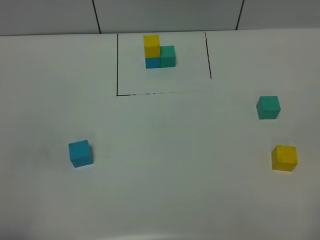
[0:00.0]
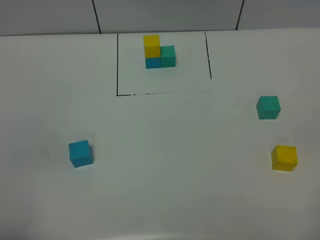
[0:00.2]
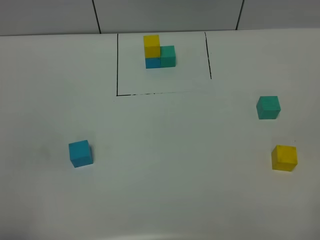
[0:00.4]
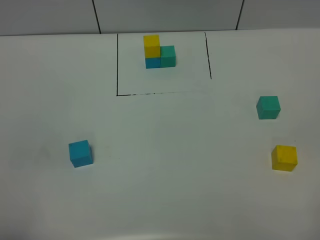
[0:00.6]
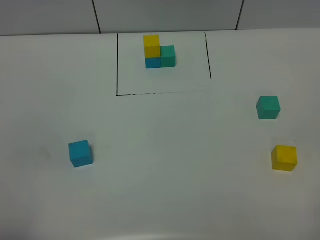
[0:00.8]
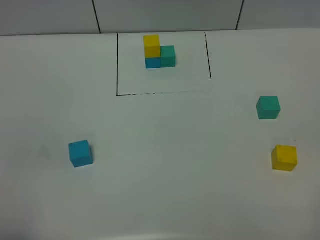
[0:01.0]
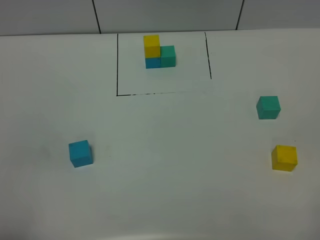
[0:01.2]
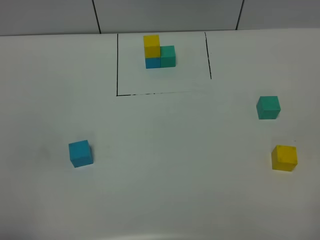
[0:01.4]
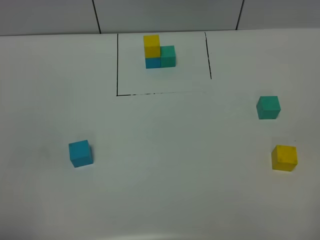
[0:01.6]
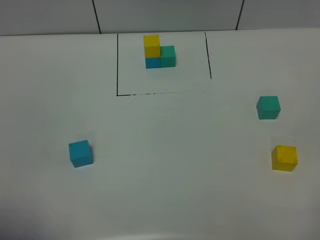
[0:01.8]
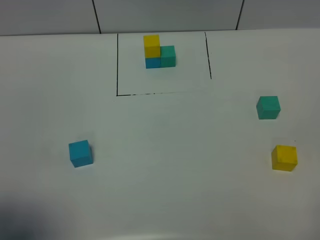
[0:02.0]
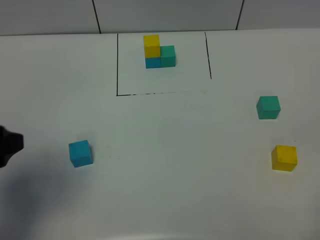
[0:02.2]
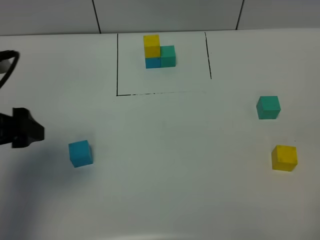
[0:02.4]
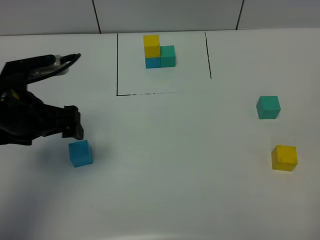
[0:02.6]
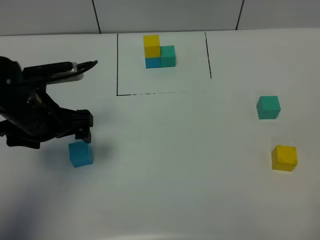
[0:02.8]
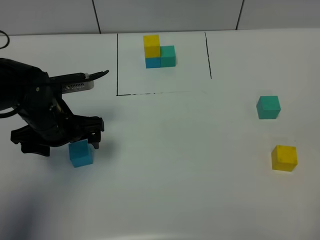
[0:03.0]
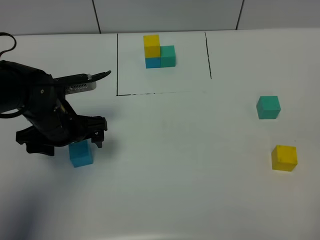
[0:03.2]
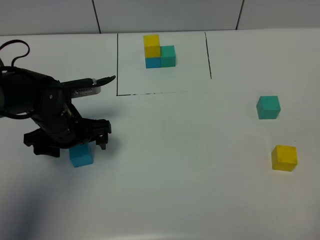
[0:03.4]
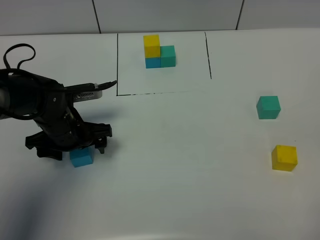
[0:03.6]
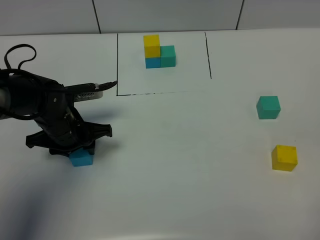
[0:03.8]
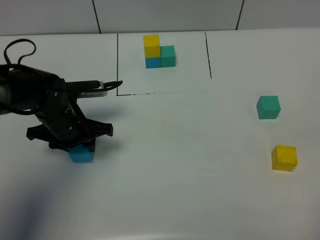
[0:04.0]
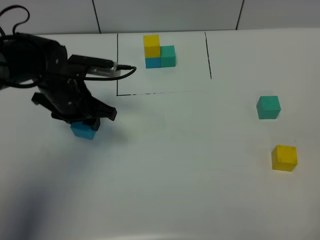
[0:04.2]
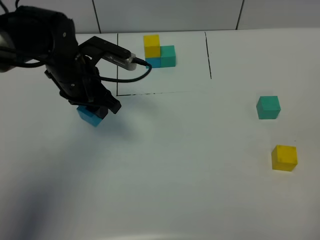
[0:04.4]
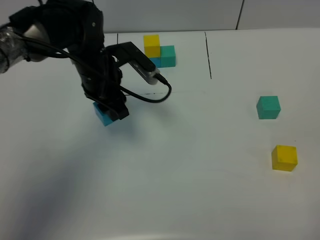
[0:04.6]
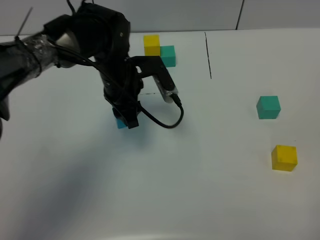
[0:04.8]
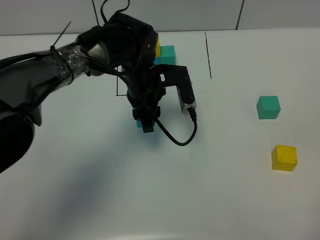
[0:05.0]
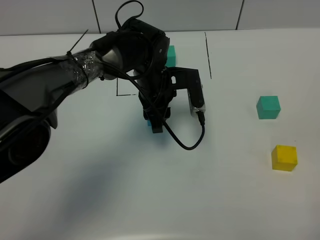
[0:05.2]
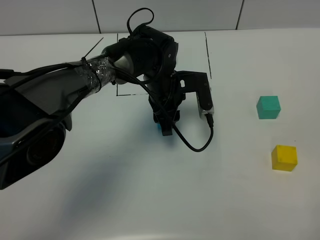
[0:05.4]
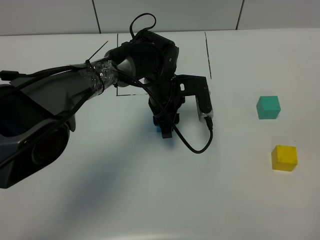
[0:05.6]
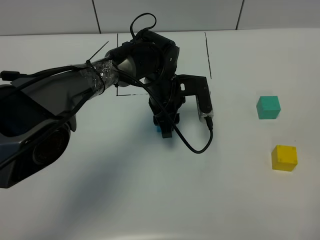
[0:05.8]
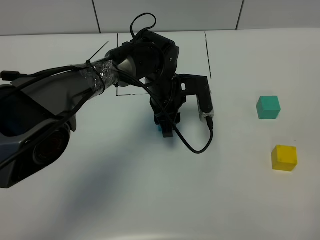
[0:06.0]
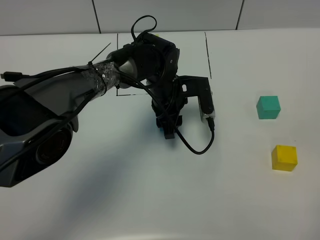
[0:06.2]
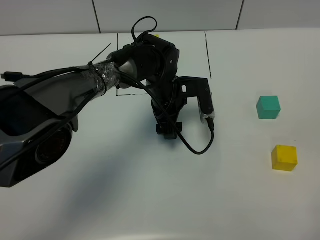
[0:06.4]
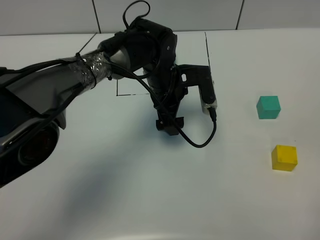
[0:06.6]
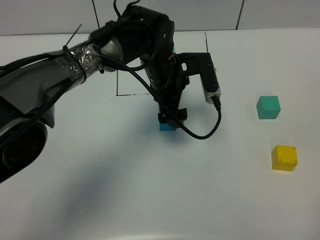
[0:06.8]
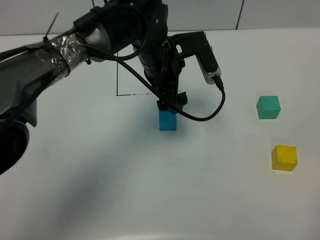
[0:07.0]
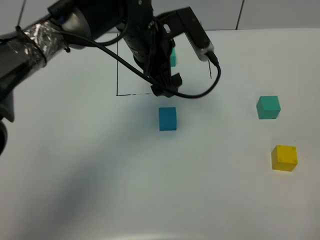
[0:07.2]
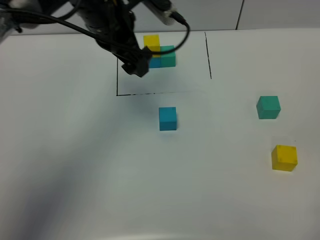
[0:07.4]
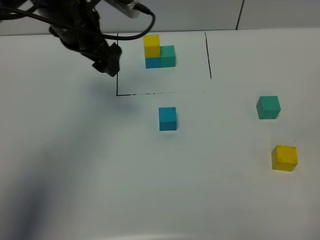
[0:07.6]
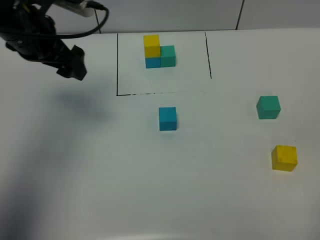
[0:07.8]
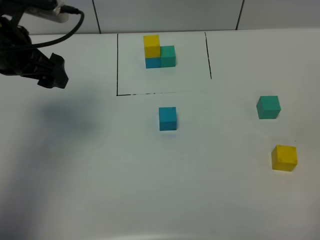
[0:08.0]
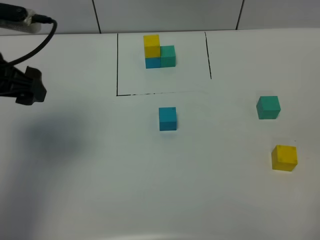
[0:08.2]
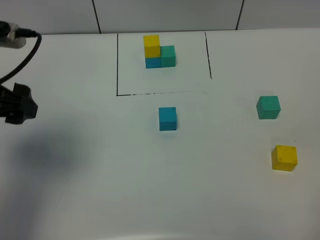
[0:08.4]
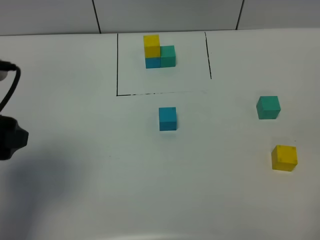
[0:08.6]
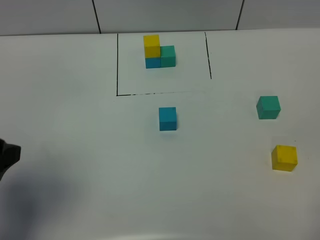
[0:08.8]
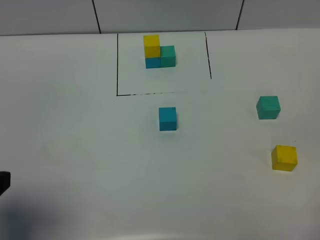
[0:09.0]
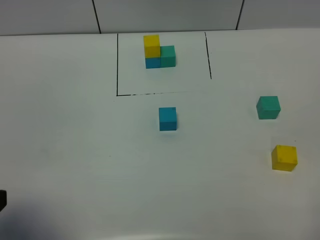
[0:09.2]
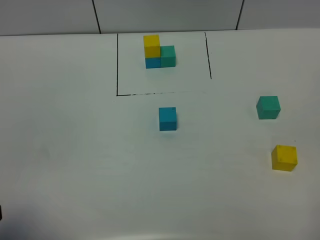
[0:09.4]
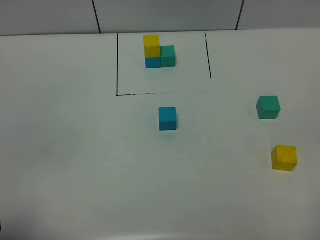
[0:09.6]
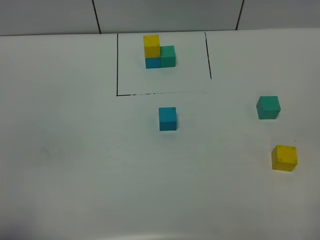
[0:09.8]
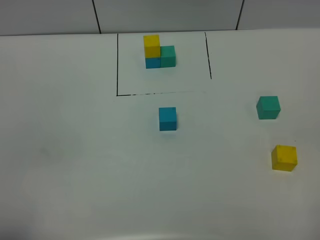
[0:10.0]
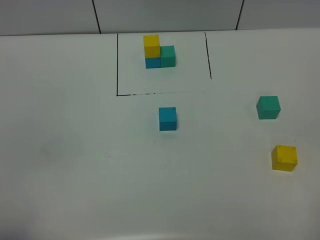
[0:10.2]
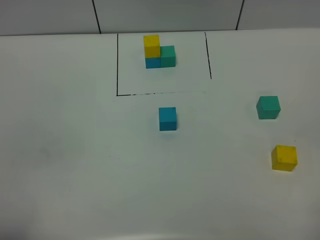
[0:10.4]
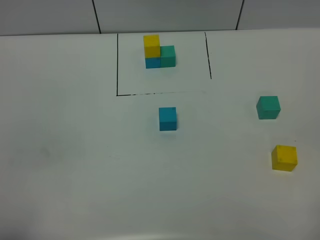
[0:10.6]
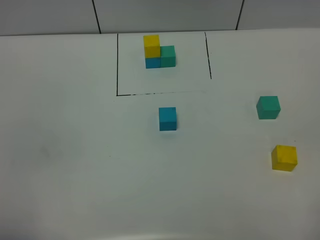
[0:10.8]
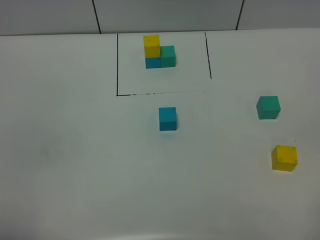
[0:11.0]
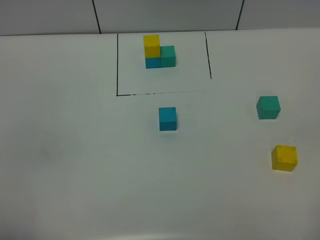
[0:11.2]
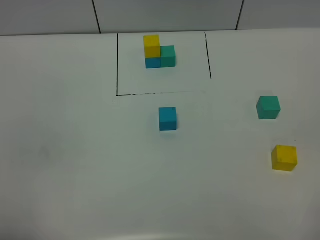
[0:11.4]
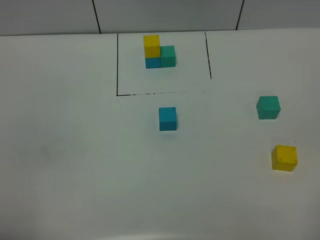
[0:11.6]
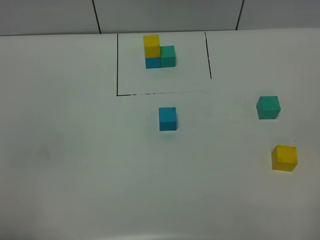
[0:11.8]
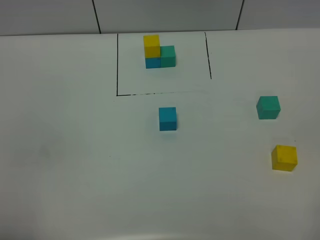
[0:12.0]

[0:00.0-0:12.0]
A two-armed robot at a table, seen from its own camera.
Task of the whole recording: According to the building block template in front, assemble the scattered blocks together.
Step, 0:00.0 to 0:06.4: Put the blue build block in the center of the table.
0:00.0 to 0:01.6: Both grippers stay put.
0:01.6 to 0:03.0: The left gripper shifts some 30 cm forward and downward, and opens.
0:03.0 to 0:04.4: The left gripper goes roughly 5 cm forward, and closes up.
0:04.4 to 0:06.0: The left gripper heads to the right and downward, covering about 15 cm.
0:06.0 to 0:07.6: The left gripper moves upward and to the left, about 25 cm, and opens its fingers.
0:07.6 to 0:09.0: The left gripper is displaced backward and to the left by some 35 cm.
0:09.0 to 0:10.4: The left gripper heads backward, covering some 10 cm, and closes.

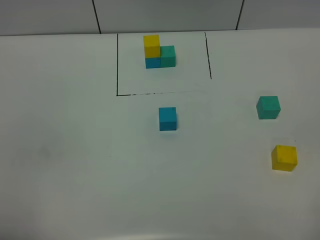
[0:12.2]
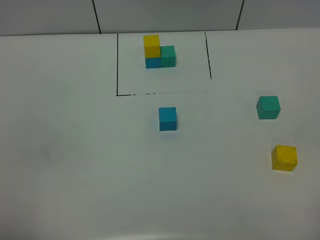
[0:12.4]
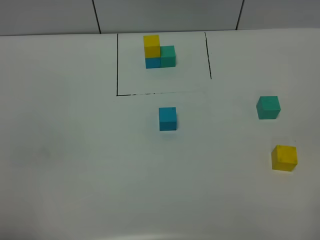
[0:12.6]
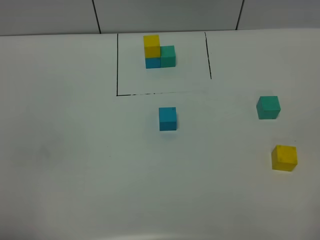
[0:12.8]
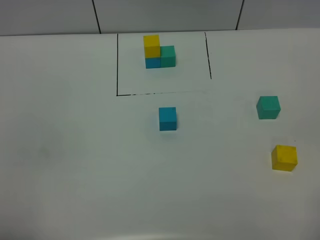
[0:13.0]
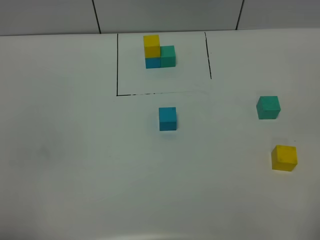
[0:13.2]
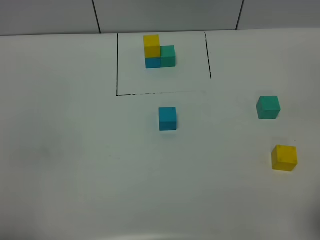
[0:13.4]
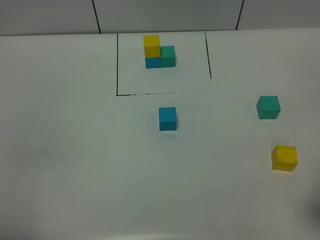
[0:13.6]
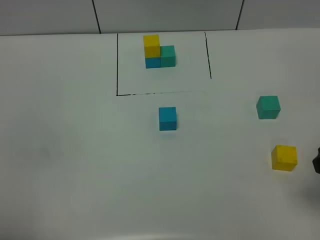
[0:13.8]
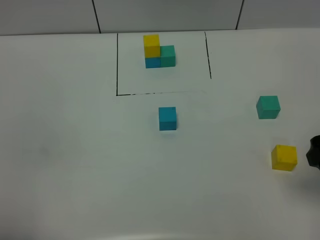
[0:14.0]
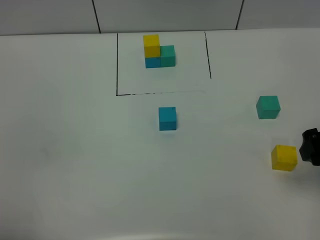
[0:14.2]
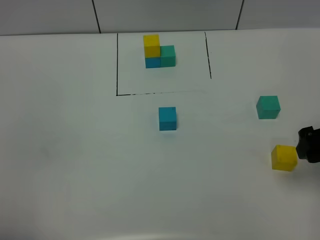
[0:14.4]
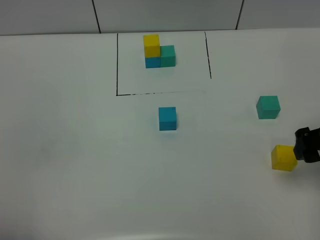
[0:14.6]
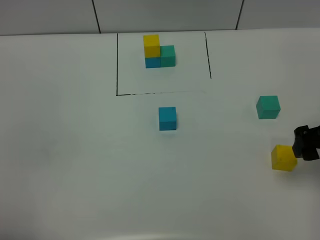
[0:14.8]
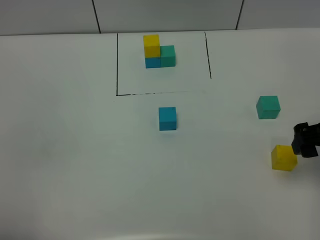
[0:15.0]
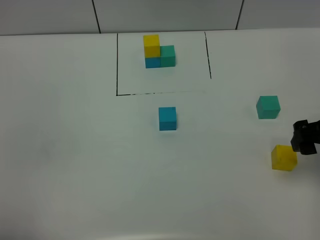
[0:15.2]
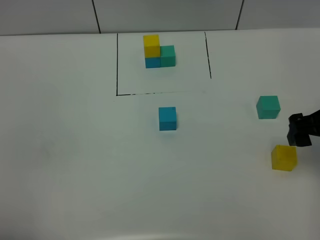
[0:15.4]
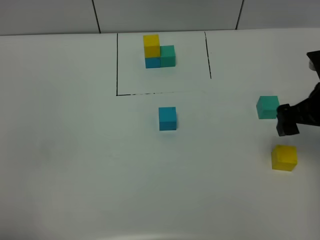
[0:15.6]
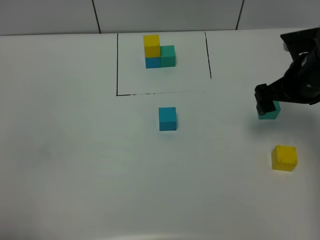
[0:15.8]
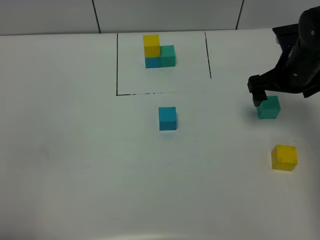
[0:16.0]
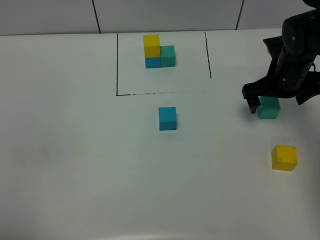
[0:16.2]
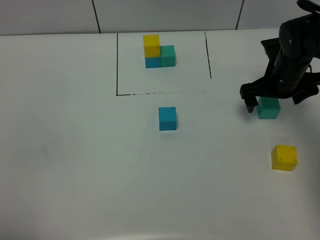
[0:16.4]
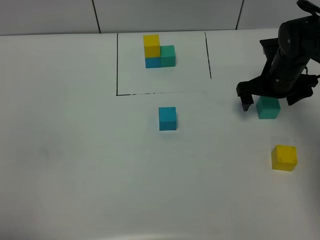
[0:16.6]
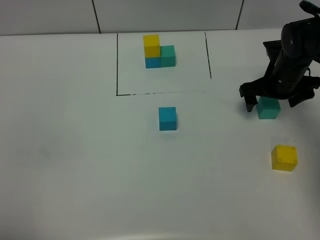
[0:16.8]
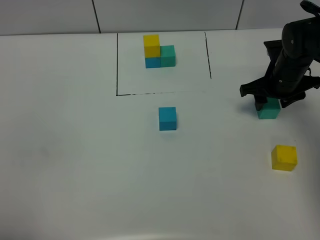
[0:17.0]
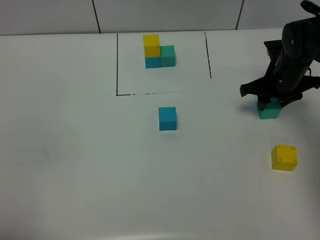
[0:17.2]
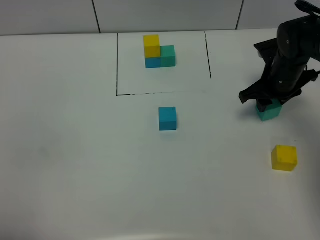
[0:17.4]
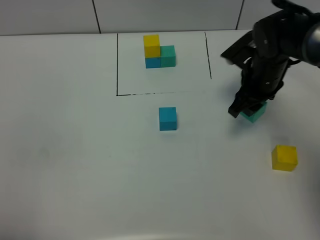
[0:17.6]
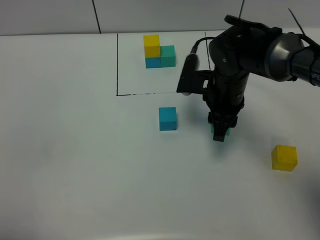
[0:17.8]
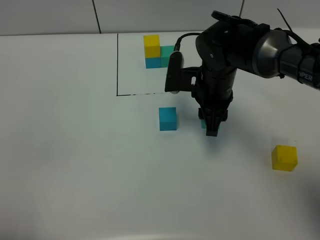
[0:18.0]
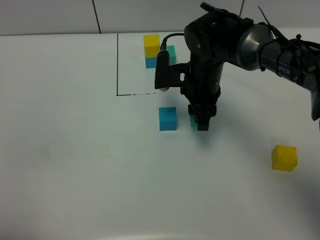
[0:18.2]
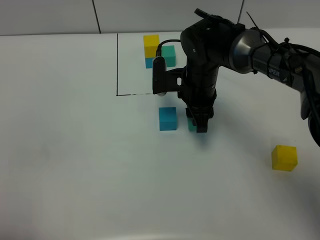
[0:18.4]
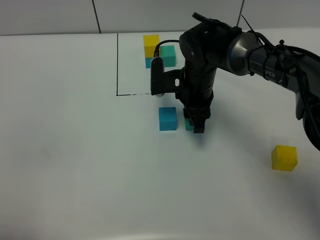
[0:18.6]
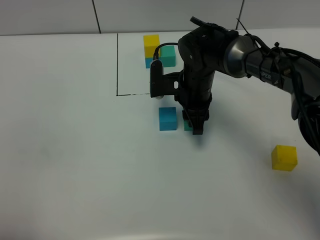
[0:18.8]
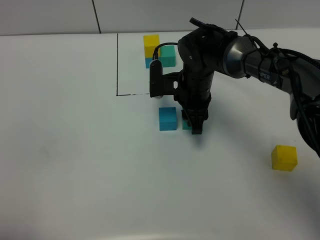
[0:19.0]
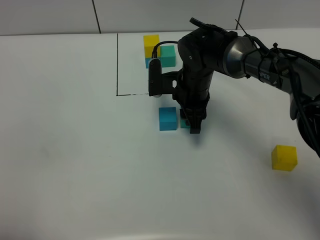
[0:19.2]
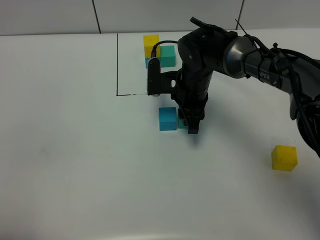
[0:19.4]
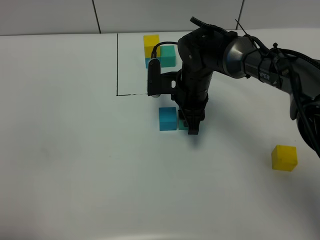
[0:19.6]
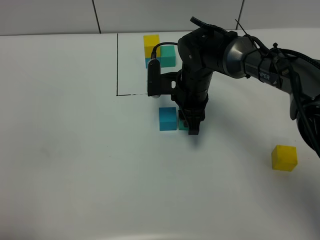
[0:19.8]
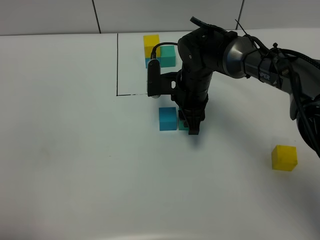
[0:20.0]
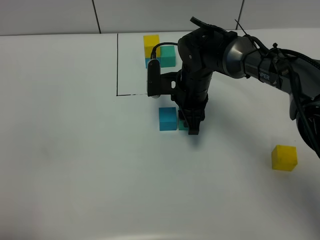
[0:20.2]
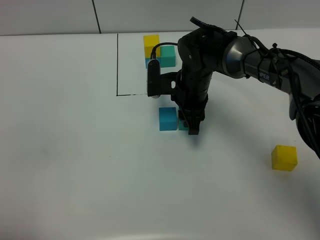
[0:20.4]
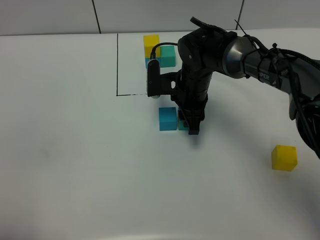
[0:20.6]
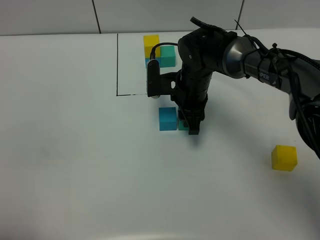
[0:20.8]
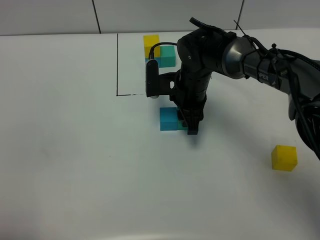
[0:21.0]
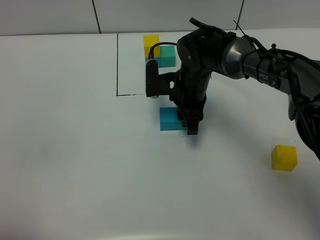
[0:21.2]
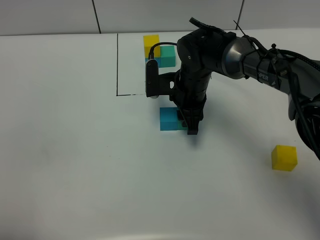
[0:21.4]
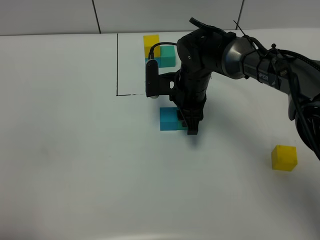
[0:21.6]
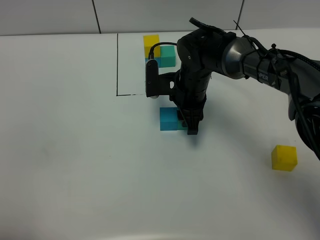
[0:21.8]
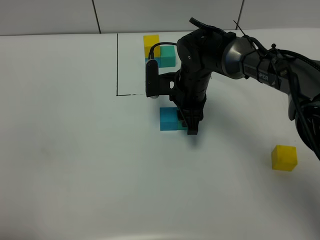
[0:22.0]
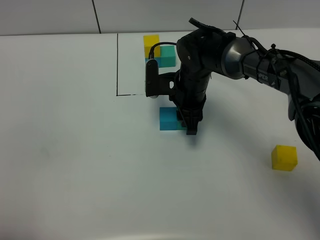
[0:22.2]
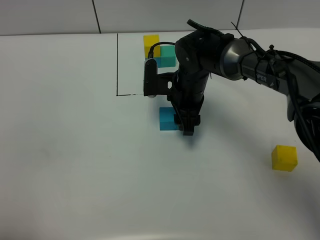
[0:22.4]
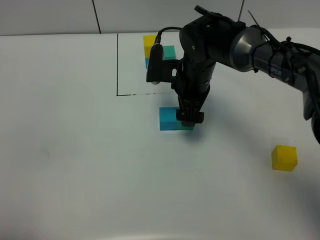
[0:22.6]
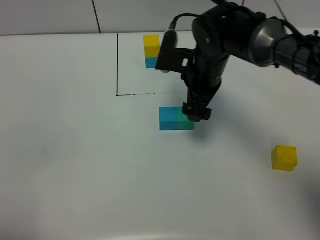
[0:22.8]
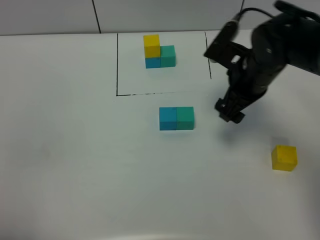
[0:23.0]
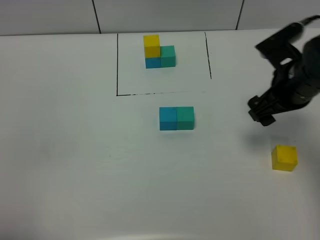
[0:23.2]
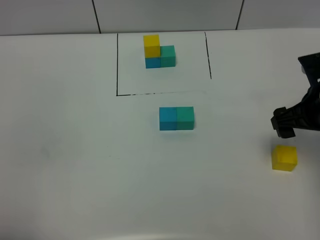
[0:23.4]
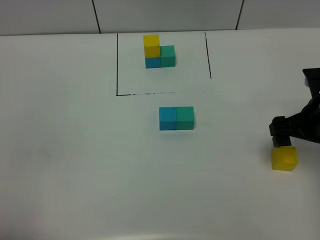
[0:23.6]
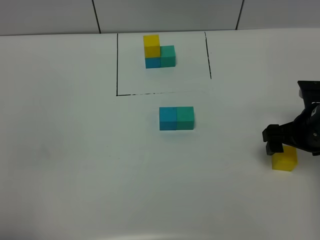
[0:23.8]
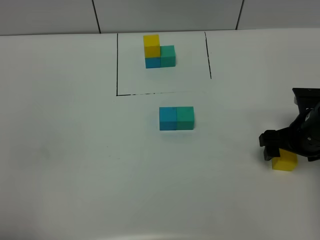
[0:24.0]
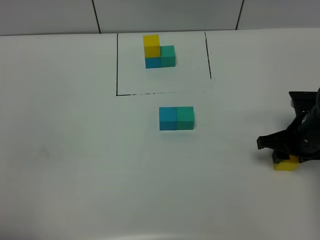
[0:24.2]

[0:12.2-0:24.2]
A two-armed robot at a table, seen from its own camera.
Task of the whole recording: According to the building block template in front, assemble the scattered blocks together.
Step, 0:12.2 to 0:22.4: Put the green build block on the right of the blue build block.
0:12.2 to 0:13.8: The right gripper is displaced forward by some 20 cm.
0:13.8 to 0:15.2: The right gripper shifts approximately 5 cm forward.
0:15.2 to 0:16.6: The right gripper shifts approximately 20 cm forward and downward.
0:16.6 to 0:18.2: The right gripper travels to the left by some 15 cm, and closes up.
0:18.2 to 0:19.8: The grippers move only a little.
0:19.8 to 0:21.2: Both grippers stay about where they are.
0:21.2 to 0:22.6: The right gripper opens up.
0:22.6 to 0:24.2: The right gripper is displaced to the right and backward by roughly 20 cm, and closes its fingers.
